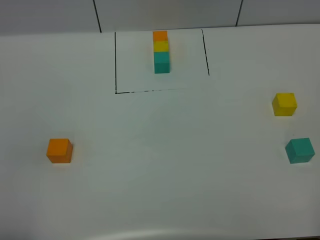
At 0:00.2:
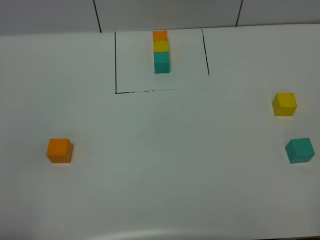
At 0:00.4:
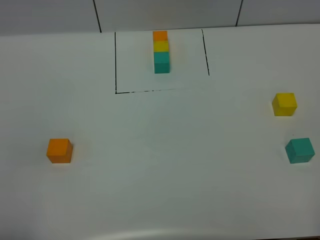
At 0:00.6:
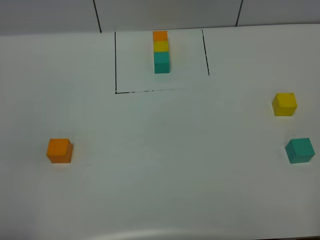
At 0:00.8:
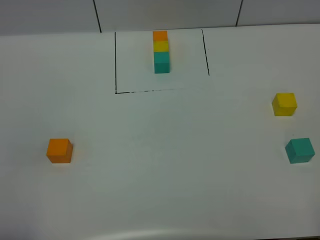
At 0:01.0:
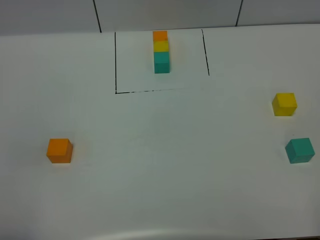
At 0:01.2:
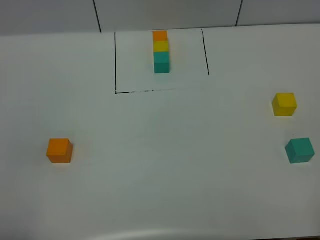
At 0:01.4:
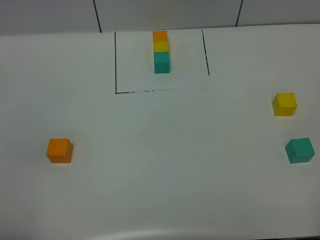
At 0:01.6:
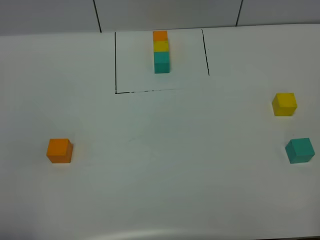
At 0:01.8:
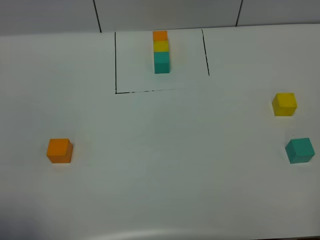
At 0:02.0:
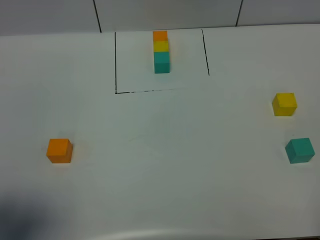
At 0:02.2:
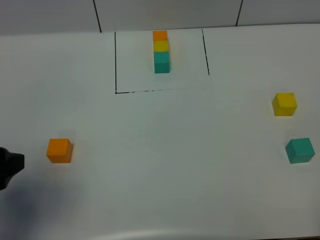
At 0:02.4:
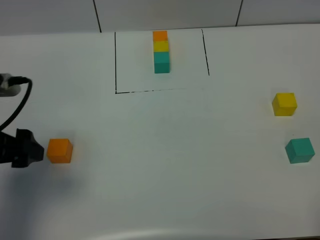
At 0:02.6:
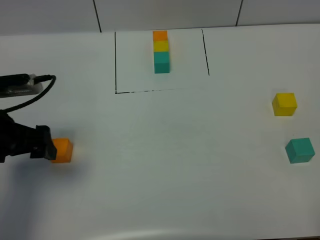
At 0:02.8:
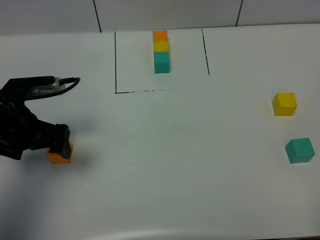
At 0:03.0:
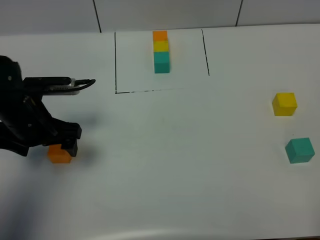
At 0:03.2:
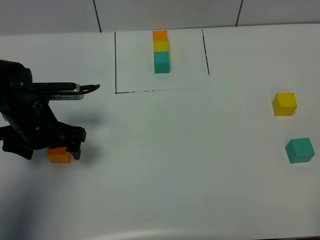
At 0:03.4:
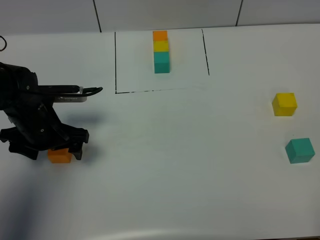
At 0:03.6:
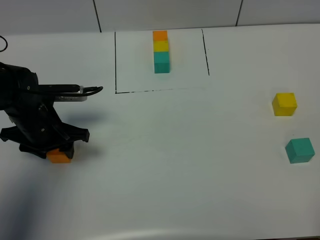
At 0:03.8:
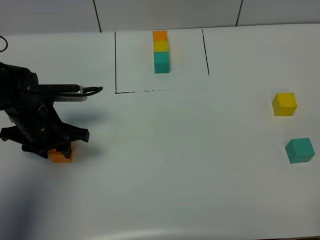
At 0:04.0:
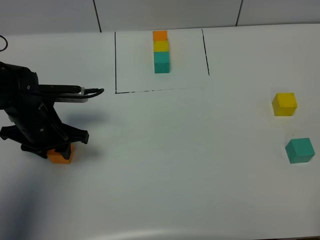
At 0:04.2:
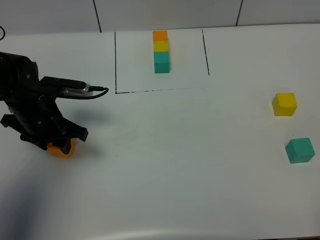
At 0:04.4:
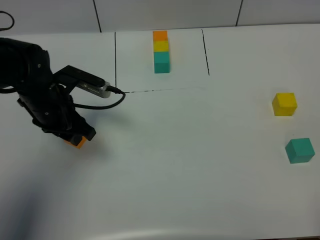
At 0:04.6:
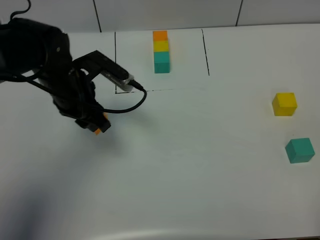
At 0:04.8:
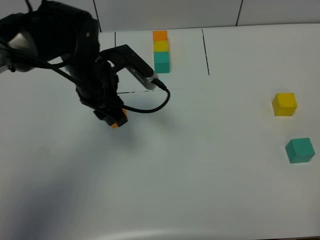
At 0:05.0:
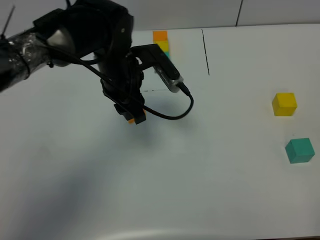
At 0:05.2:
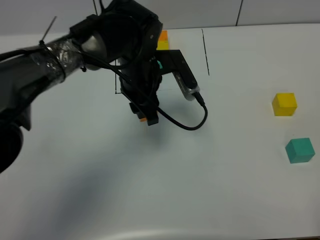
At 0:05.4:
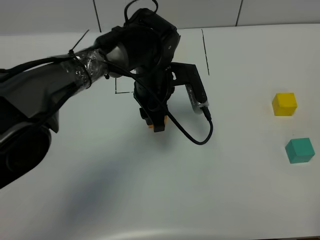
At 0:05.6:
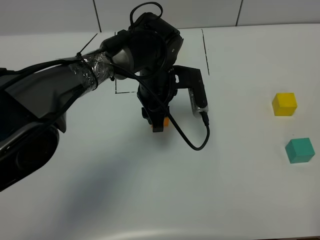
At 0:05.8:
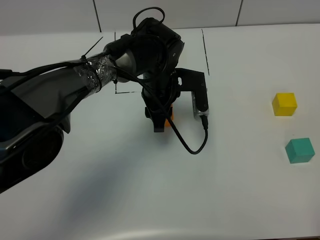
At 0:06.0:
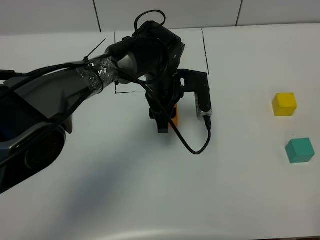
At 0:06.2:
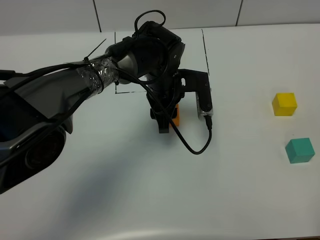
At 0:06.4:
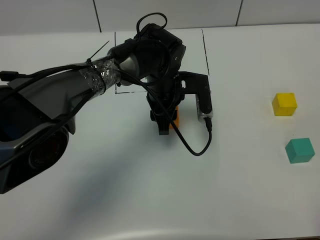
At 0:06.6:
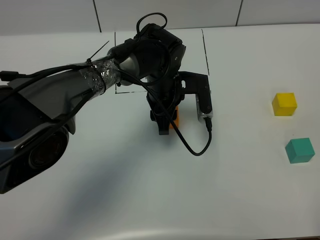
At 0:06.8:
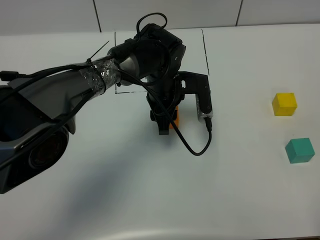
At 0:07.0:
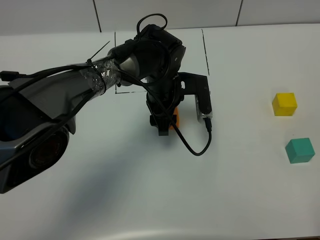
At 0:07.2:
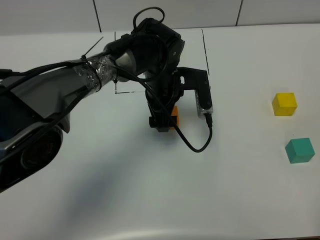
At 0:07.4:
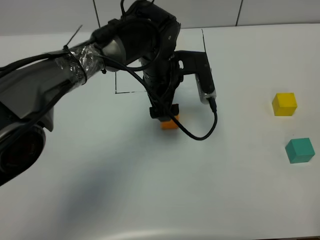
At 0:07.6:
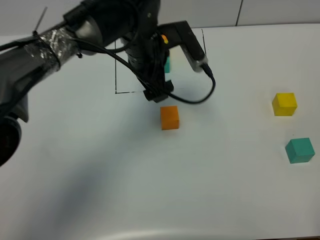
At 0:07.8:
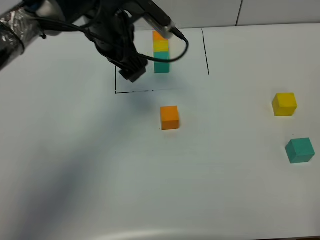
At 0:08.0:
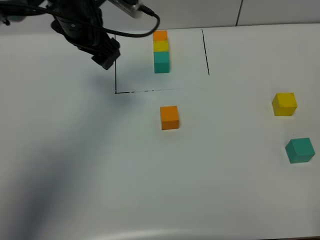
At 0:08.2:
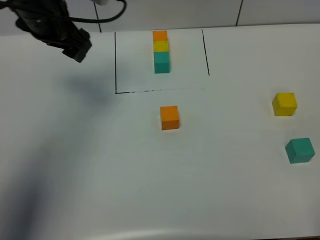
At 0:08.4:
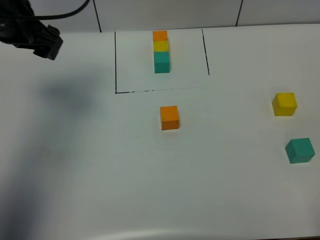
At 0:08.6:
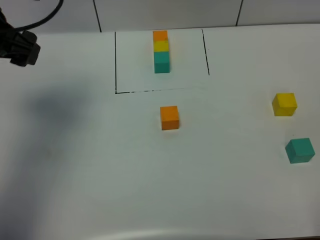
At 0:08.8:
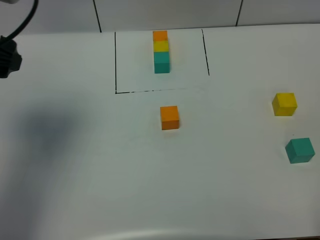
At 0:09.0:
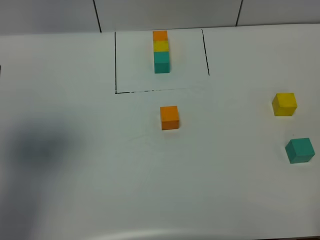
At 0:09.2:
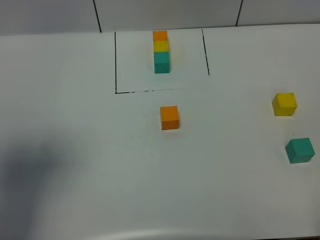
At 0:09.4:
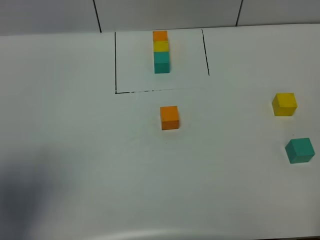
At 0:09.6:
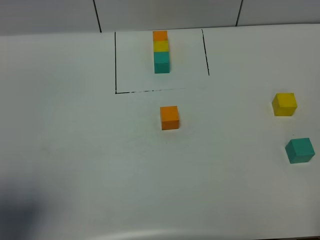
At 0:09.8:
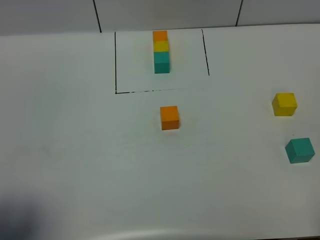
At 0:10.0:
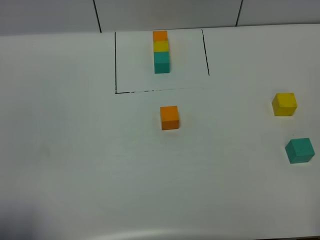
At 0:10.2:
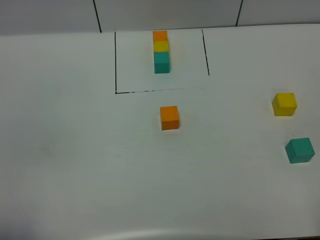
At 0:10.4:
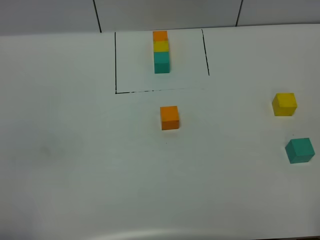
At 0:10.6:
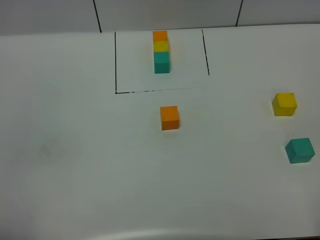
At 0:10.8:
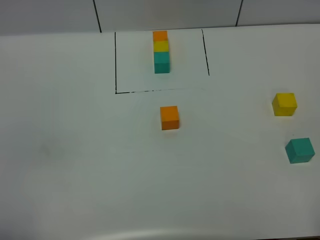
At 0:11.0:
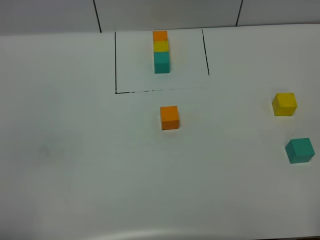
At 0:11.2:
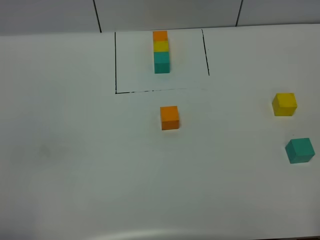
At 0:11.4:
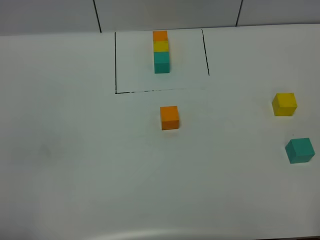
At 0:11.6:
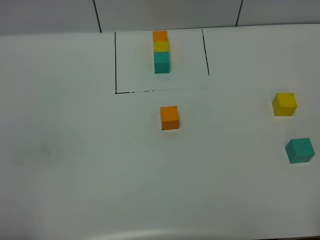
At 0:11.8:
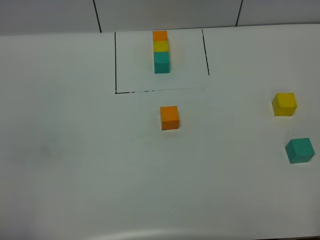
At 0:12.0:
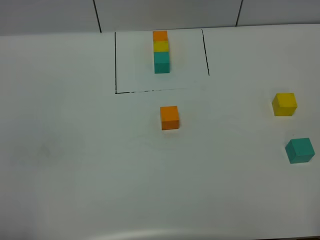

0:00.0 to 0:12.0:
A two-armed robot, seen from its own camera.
Task of the whole recording: According to the building block template in front, assemble the scattered blocks together.
Step, 0:02.2 to 0:07.4: Put the orange cube in the center of the table.
0:00.0 to 0:01.6: Neither gripper changes place.
0:01.6 to 0:03.0: The left gripper shifts roughly 30 cm forward, and opens.
0:03.0 to 0:04.4: The left gripper changes place by approximately 5 cm, and closes up.
0:04.4 to 0:06.0: The left gripper moves to the right, approximately 20 cm.
0:06.0 to 0:07.6: The left gripper moves upward, roughly 10 cm, and opens up.
0:07.6 to 0:09.0: The left gripper is displaced to the left, backward and upward by approximately 35 cm.
0:09.0 to 0:10.4: The left gripper shifts some 25 cm backward and downward.

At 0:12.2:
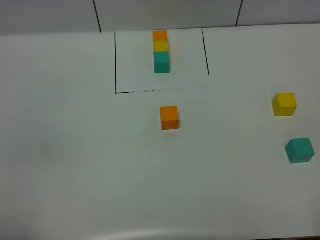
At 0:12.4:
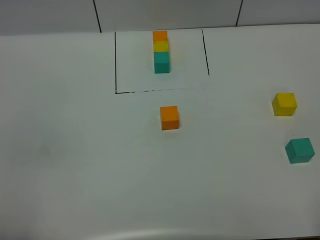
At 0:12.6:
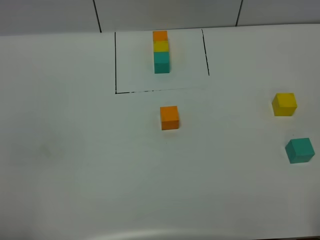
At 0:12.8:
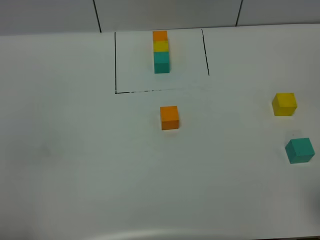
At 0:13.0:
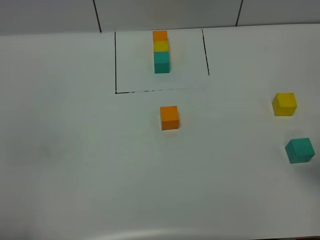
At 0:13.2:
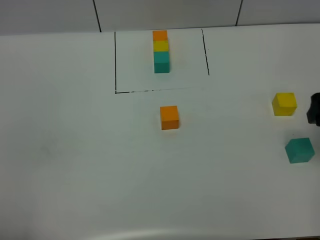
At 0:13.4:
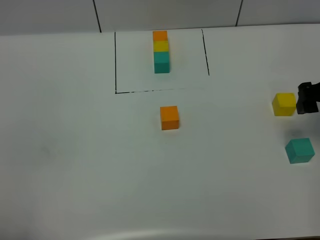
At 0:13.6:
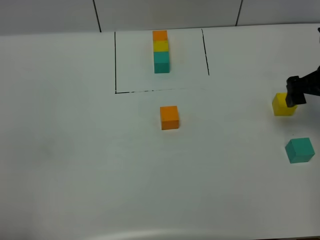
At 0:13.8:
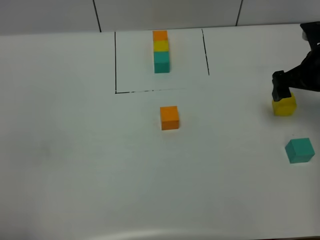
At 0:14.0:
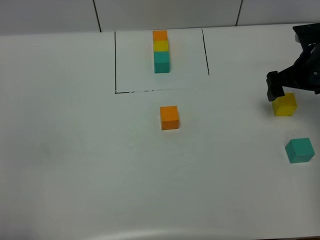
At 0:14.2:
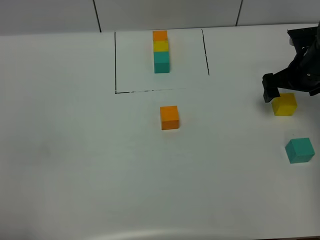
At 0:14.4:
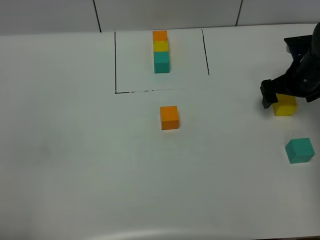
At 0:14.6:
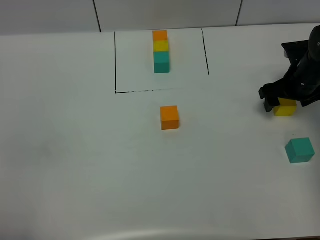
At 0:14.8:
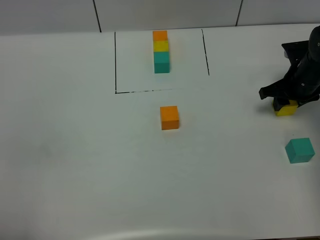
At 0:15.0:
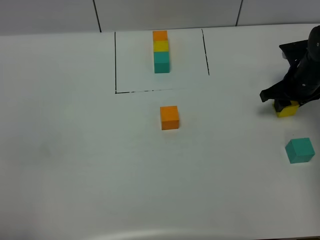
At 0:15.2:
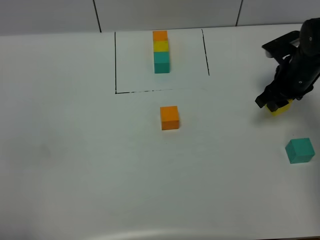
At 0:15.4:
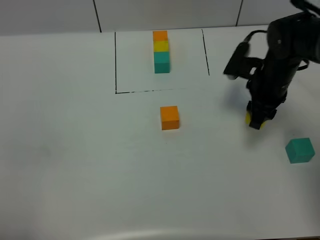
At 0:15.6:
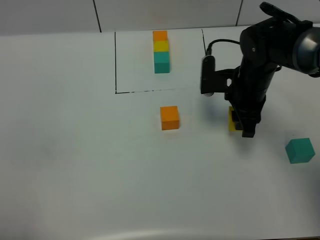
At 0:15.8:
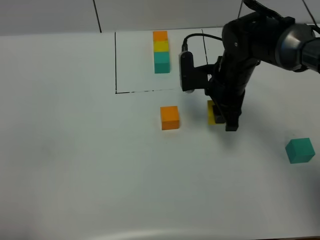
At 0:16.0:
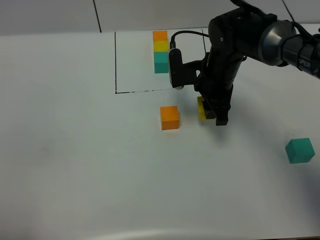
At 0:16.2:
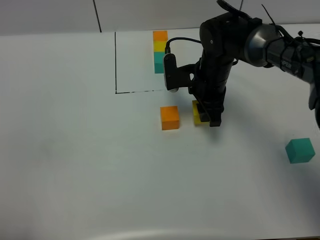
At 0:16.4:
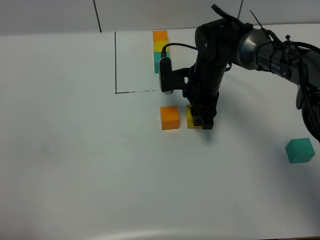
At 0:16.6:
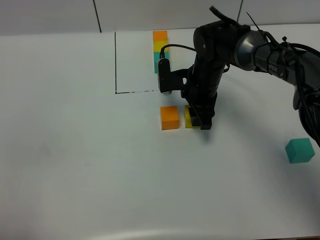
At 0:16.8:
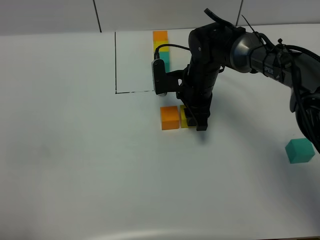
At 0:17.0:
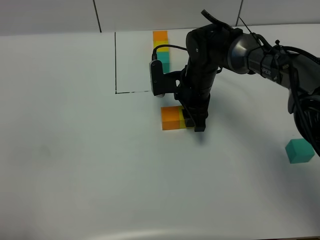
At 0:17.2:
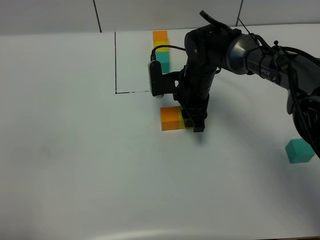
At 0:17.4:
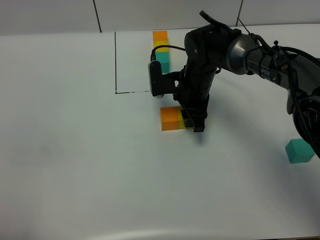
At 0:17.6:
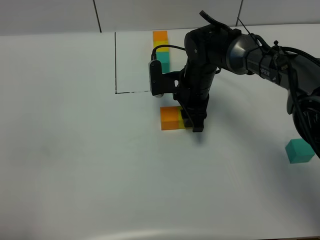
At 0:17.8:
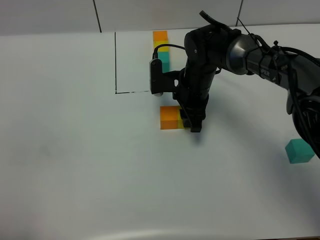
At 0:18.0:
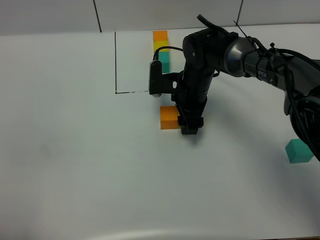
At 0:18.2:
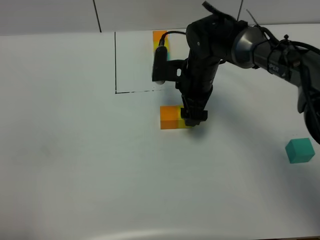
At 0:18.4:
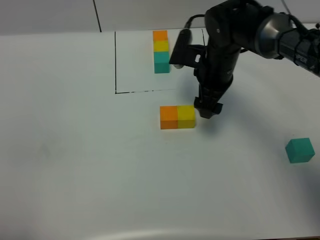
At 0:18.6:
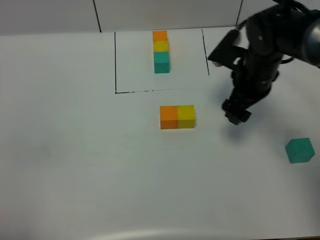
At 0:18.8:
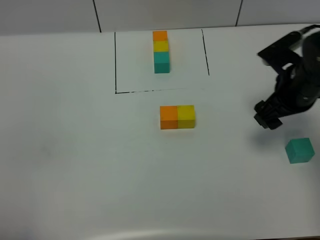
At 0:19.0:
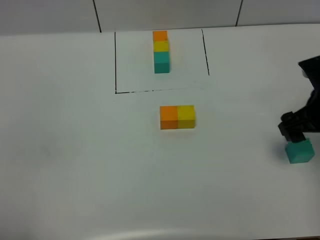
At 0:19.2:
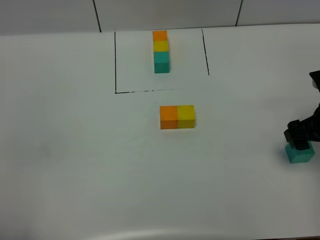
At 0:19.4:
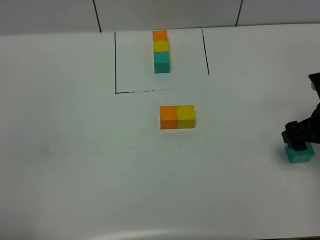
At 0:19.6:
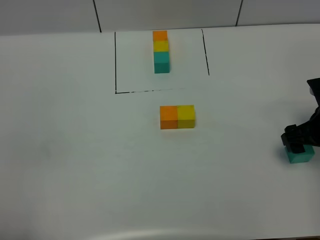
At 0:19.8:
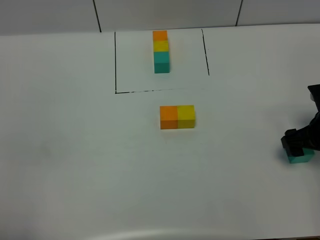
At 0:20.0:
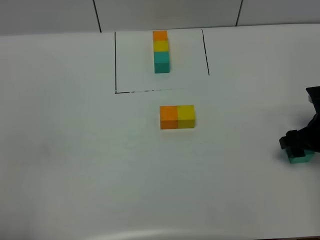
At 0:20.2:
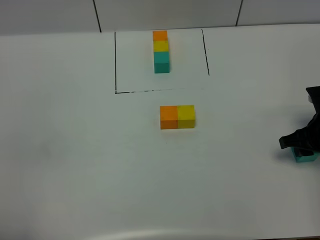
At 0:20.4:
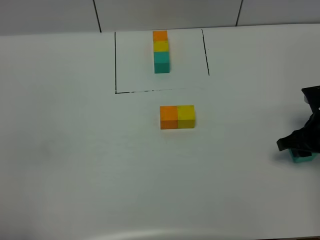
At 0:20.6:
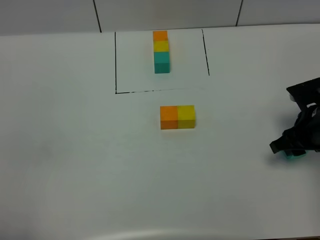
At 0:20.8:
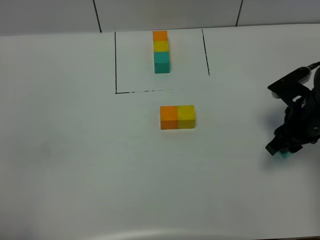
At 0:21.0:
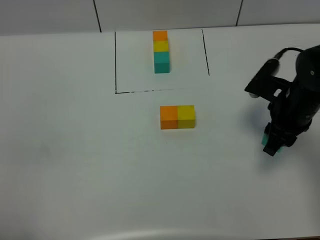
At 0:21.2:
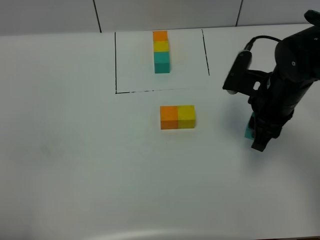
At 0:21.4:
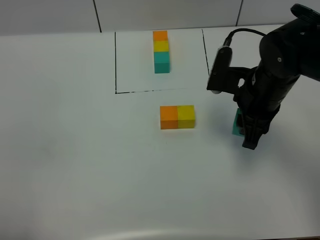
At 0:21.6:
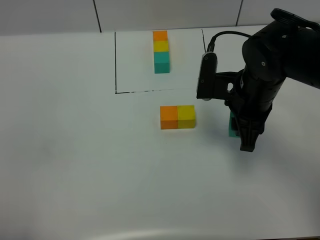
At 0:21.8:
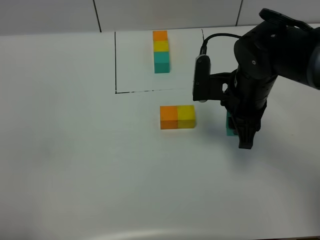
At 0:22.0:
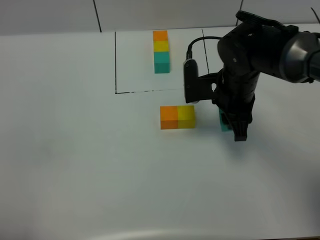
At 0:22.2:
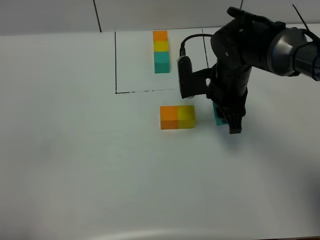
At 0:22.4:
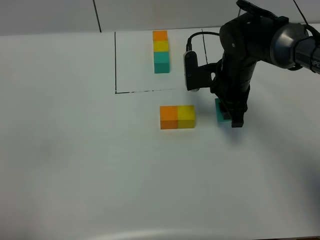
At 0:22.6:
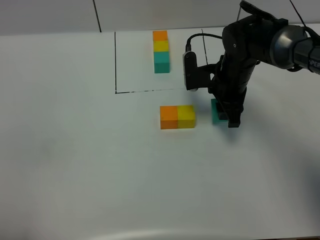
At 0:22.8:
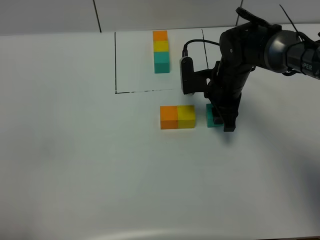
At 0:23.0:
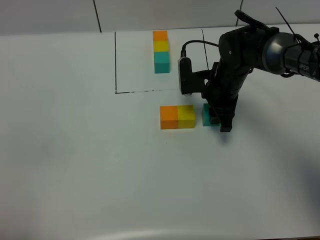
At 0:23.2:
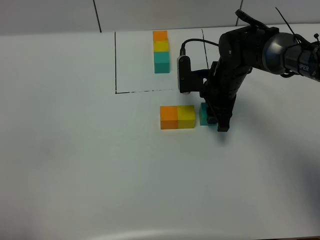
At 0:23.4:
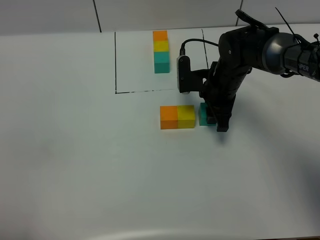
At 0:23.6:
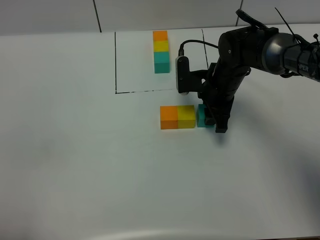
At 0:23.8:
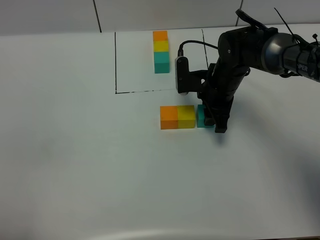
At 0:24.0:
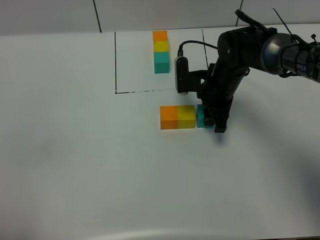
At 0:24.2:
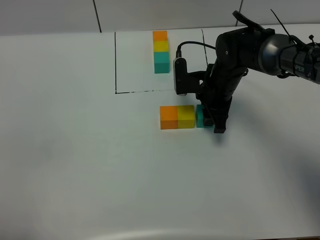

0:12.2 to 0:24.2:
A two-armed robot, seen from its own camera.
Task of the whole recording: According to the building block template in front, assemble the scattered blocks together.
Step, 0:12.2 to 0:18.4: Put the yellow cube on the right of the orange cube.
0:12.2 to 0:13.8: The right gripper shifts roughly 40 cm forward.
0:13.8 to 0:15.2: The right gripper shifts by about 5 cm, and closes its fingers.
0:15.2 to 0:16.6: The right gripper goes some 15 cm to the left.
0:16.6 to 0:18.2: The right gripper opens up.
0:18.2 to 0:19.8: The right gripper heads to the right and backward, covering approximately 25 cm.
0:19.8 to 0:21.2: The right gripper heads to the left and upward, covering approximately 15 cm, and closes up.
0:21.2 to 0:22.6: The right gripper moves forward, downward and to the left, some 10 cm.
0:22.6 to 0:24.2: The grippers make only small movements.
